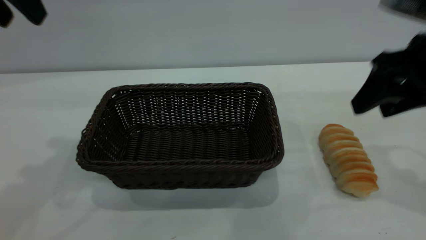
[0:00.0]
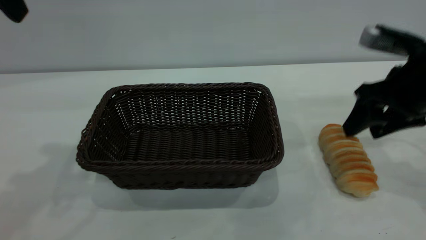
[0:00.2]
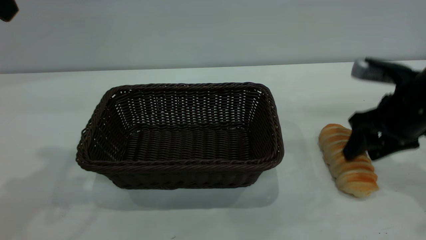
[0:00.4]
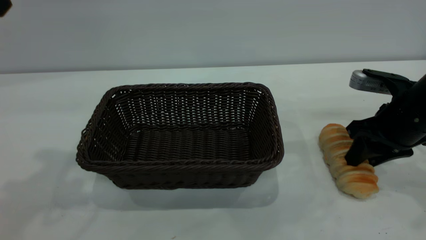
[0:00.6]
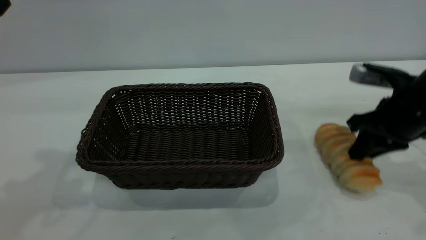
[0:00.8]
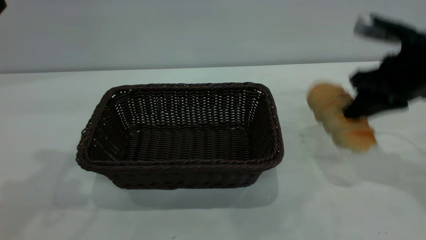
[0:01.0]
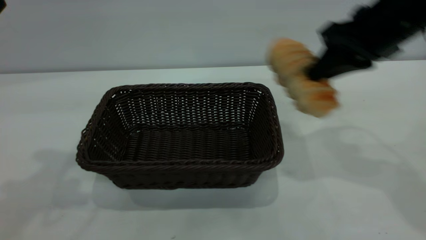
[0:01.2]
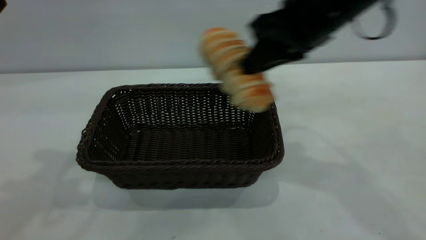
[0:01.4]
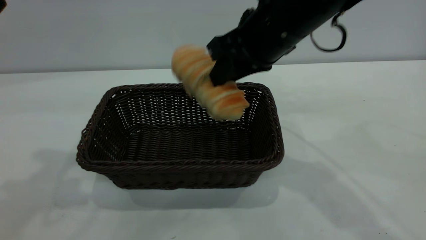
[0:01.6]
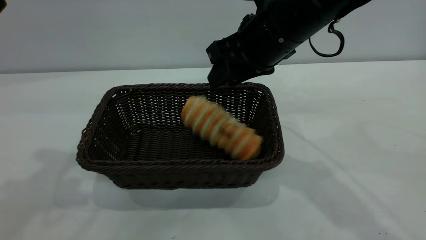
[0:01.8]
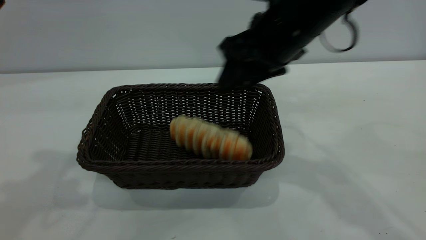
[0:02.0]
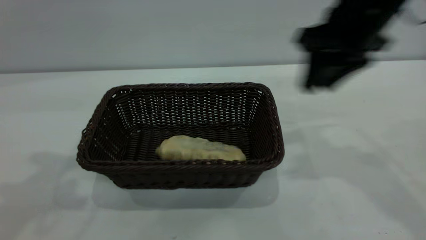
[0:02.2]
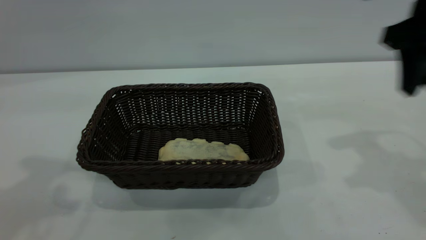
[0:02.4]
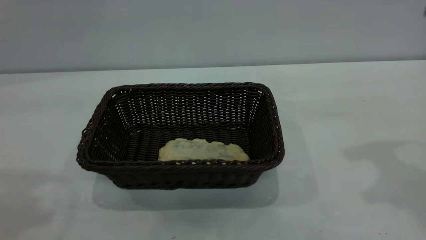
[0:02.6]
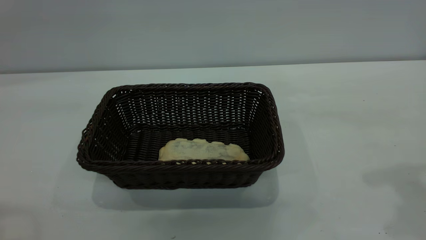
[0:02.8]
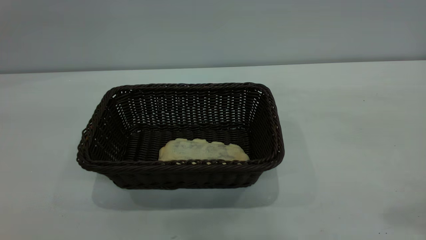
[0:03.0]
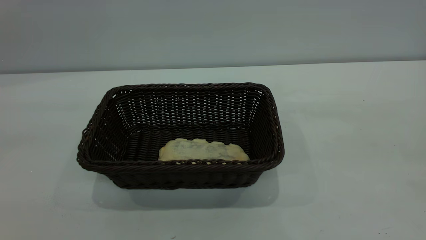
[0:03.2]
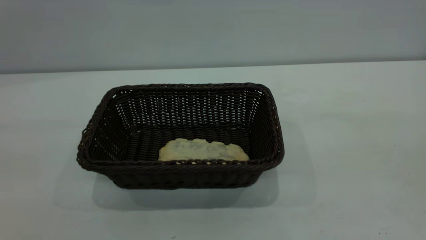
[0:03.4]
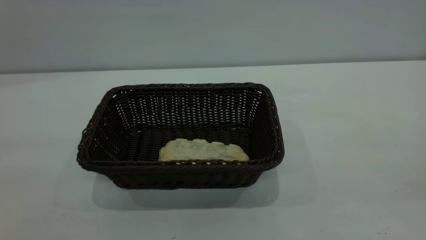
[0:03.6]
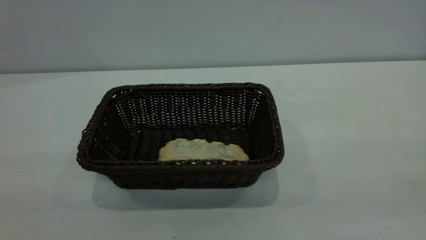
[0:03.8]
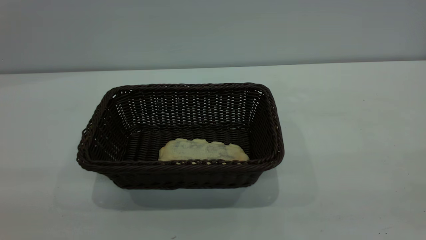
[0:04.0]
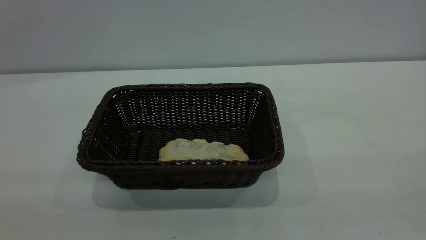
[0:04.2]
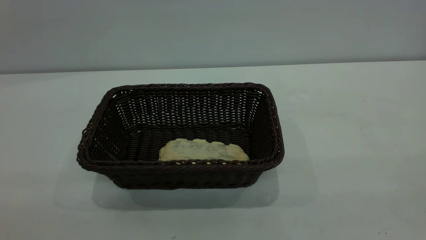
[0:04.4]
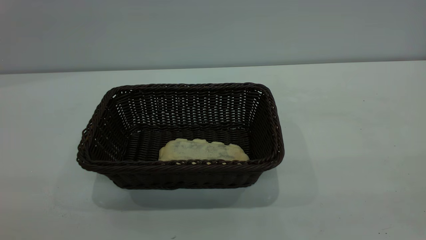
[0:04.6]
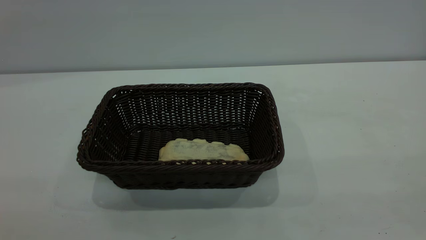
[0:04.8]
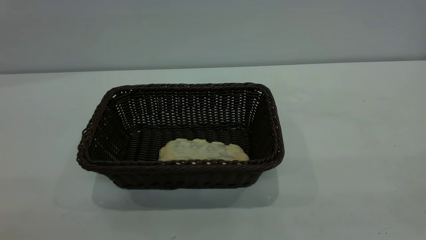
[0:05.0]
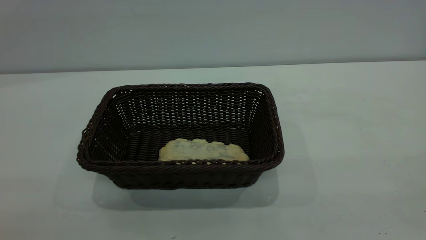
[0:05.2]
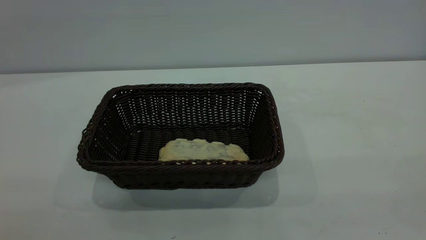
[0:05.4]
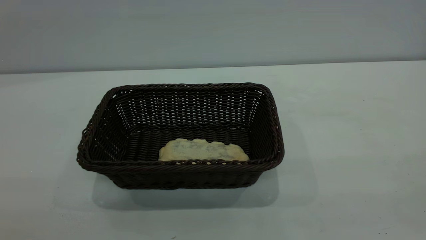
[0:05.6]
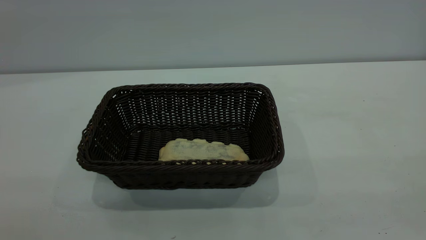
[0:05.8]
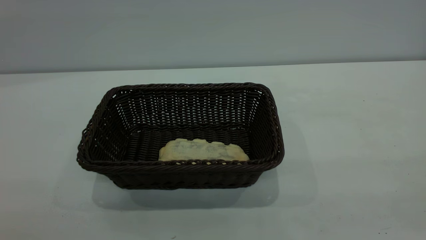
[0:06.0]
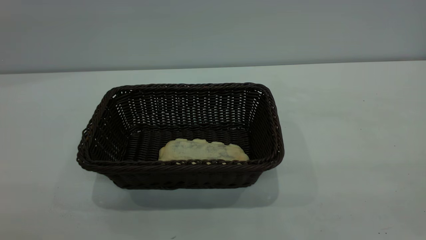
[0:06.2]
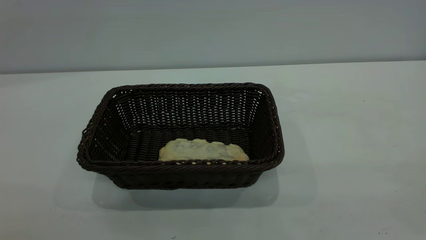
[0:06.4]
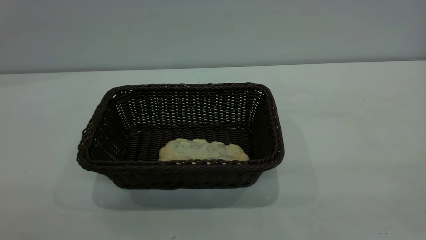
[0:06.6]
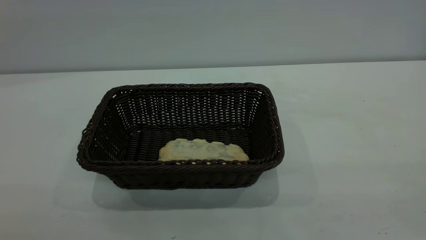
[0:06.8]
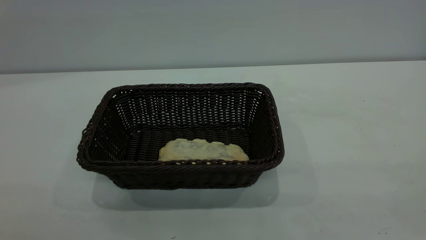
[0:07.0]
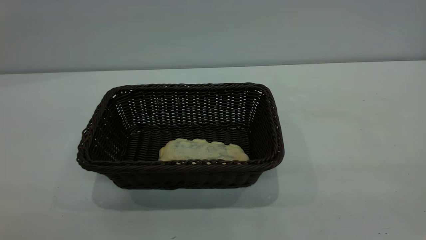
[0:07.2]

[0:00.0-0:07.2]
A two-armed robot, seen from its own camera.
Task of the whole recording: One hand grasps the black basket and places it in the middle of the table, while the other hand picks up the long bread and puts it into the black basket.
Step, 0:01.2 to 0:02.2: place the bread into the basket.
0:00.0 to 0:01.4: The right gripper shifts some 15 cm to the left, and closes.
0:01.4 to 0:02.8: The left gripper goes approximately 15 cm backward and upward. Meanwhile the right gripper shifts about 20 cm to the right, upward and backward, and opens up.
0:04.4 to 0:05.8: The two grippers keep their place.
